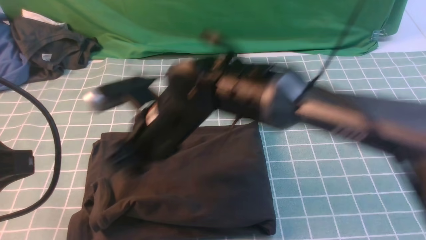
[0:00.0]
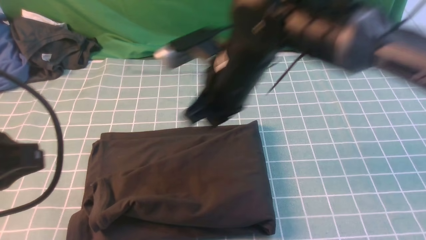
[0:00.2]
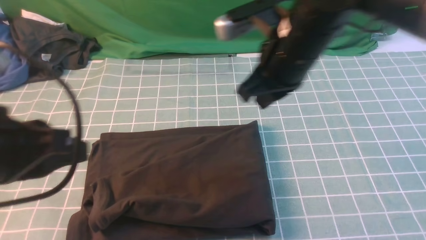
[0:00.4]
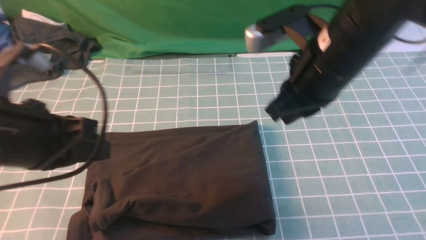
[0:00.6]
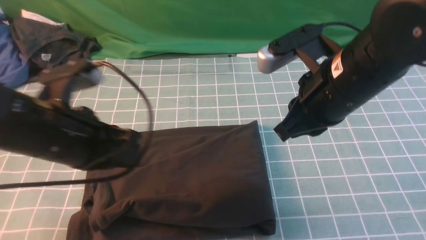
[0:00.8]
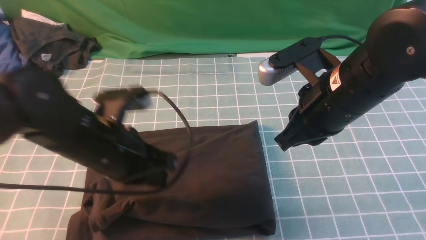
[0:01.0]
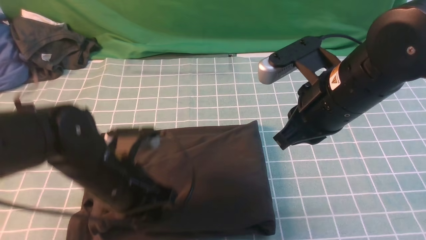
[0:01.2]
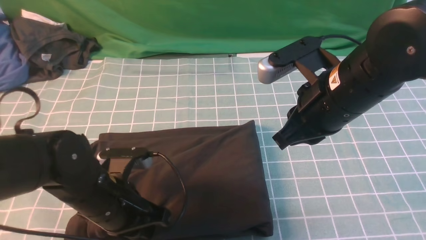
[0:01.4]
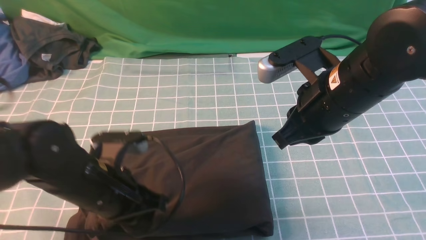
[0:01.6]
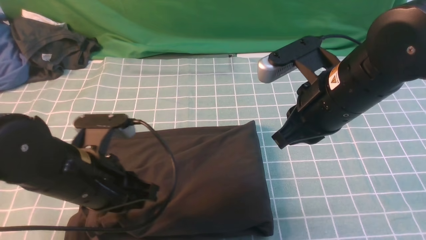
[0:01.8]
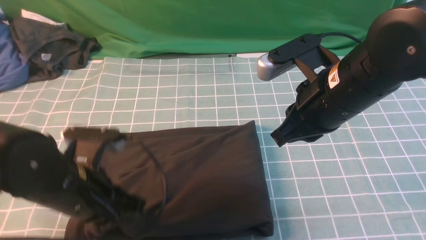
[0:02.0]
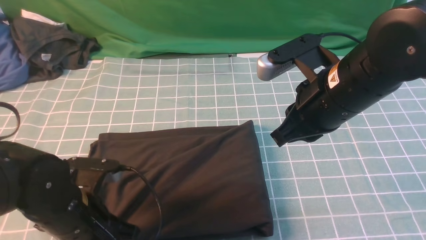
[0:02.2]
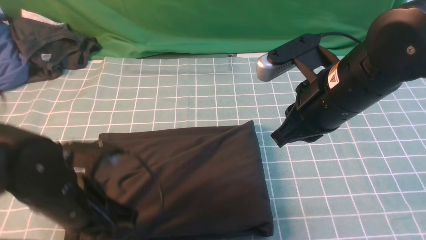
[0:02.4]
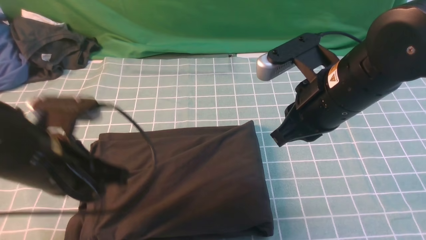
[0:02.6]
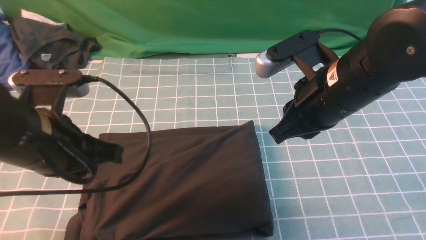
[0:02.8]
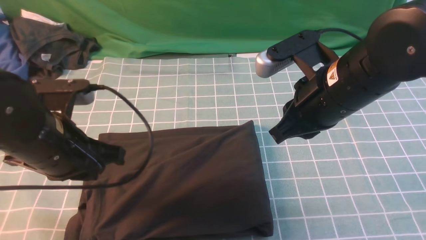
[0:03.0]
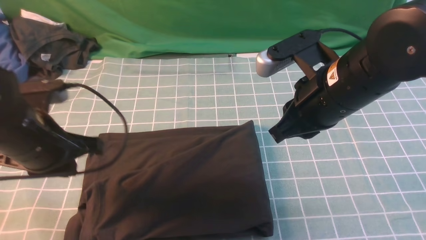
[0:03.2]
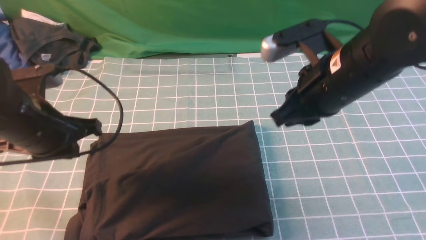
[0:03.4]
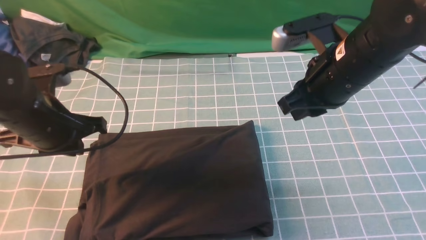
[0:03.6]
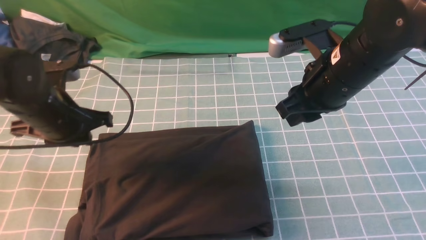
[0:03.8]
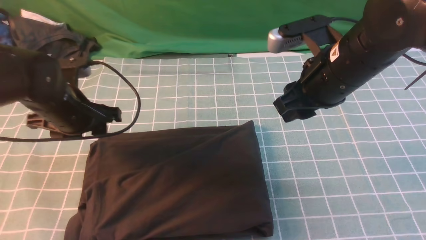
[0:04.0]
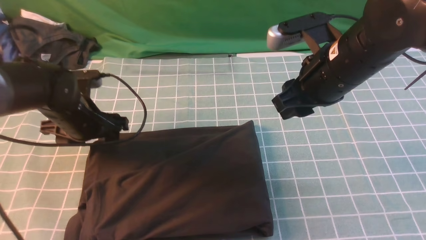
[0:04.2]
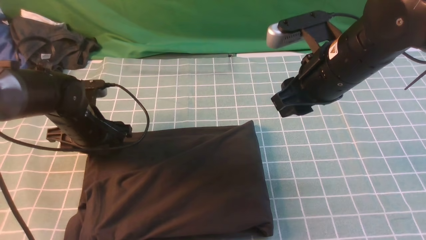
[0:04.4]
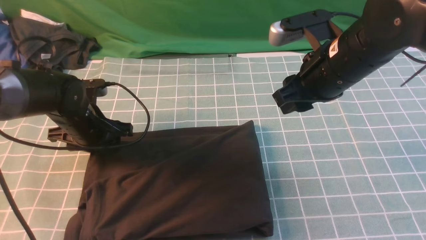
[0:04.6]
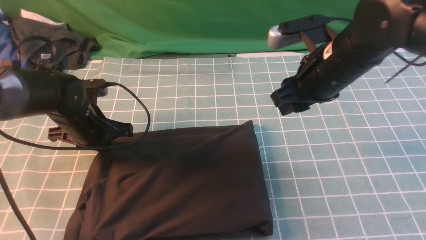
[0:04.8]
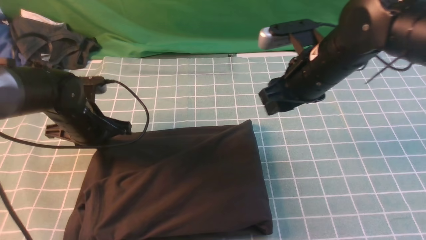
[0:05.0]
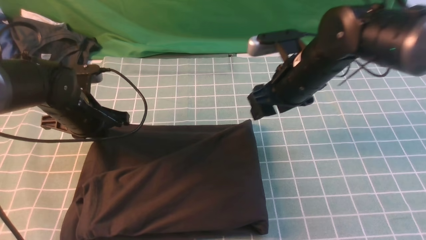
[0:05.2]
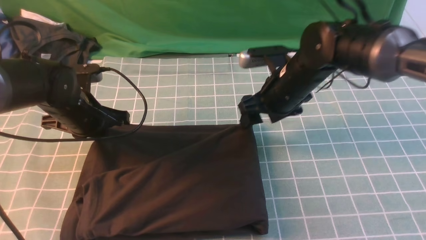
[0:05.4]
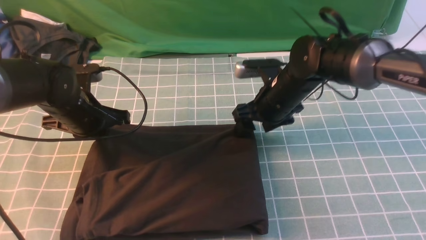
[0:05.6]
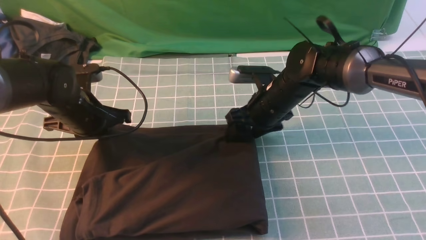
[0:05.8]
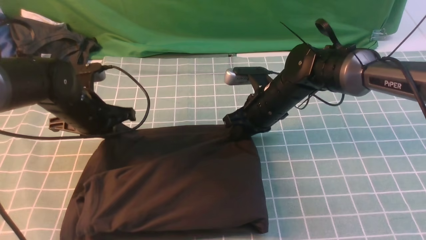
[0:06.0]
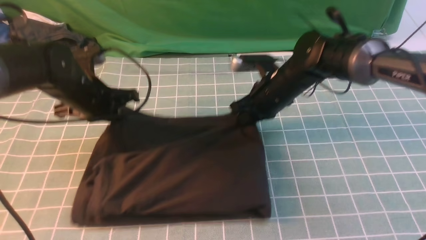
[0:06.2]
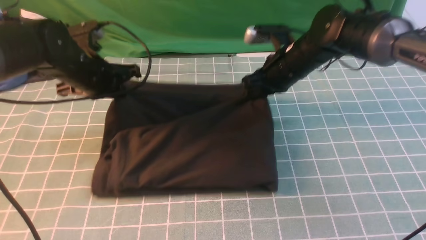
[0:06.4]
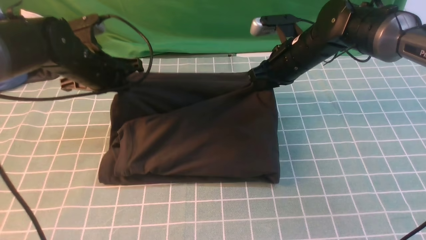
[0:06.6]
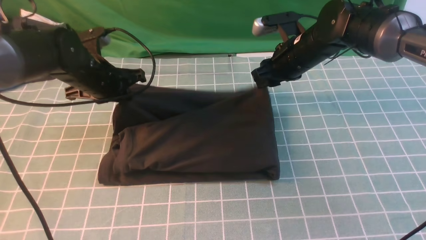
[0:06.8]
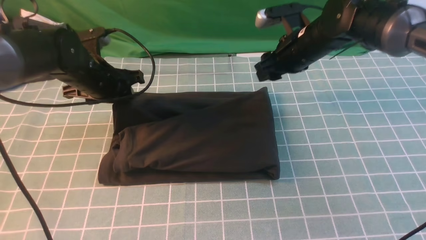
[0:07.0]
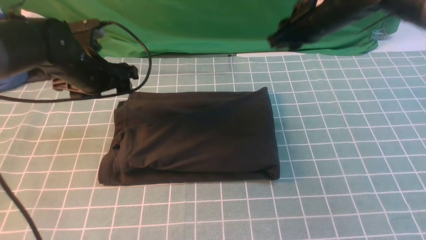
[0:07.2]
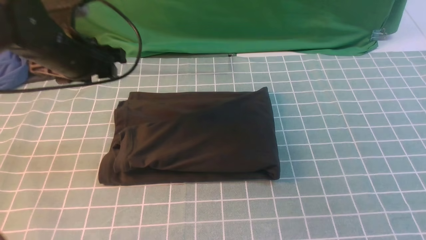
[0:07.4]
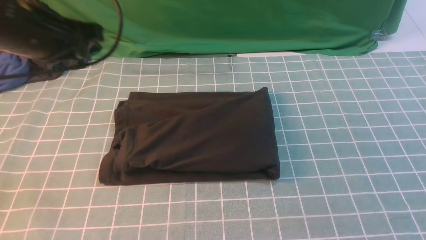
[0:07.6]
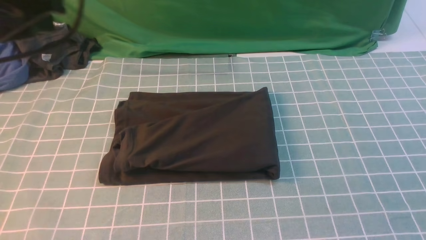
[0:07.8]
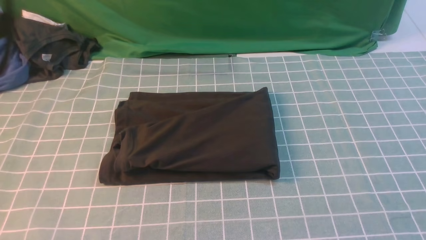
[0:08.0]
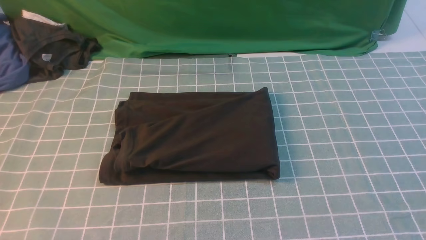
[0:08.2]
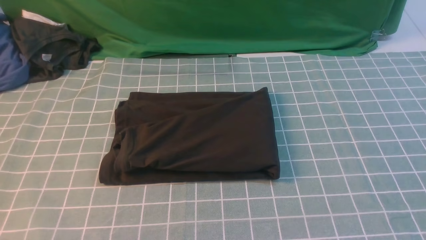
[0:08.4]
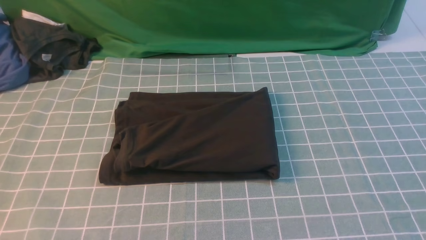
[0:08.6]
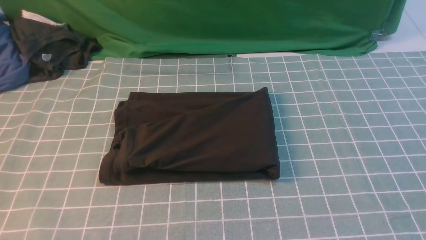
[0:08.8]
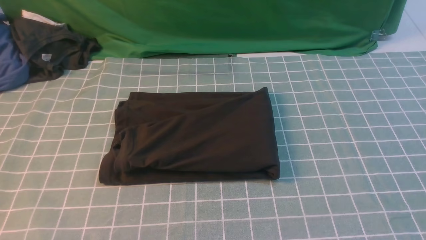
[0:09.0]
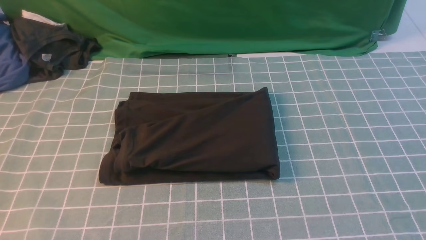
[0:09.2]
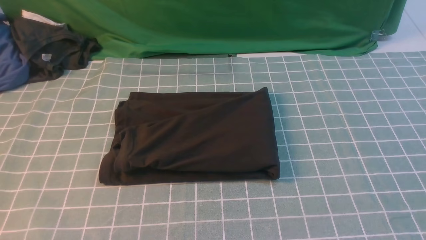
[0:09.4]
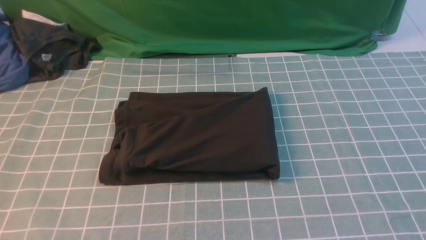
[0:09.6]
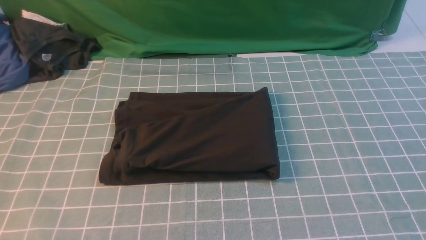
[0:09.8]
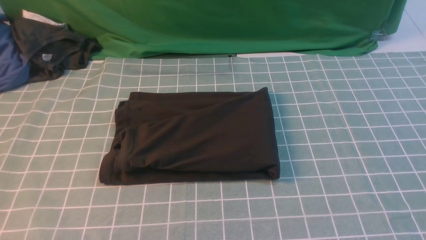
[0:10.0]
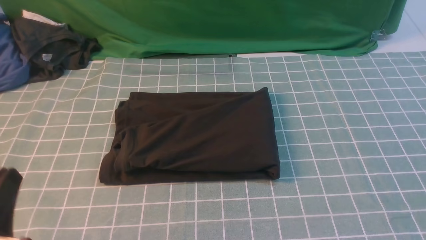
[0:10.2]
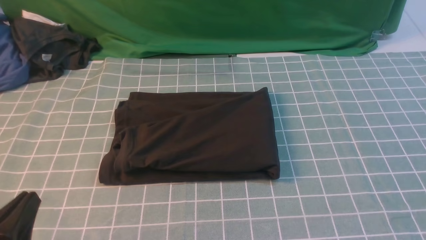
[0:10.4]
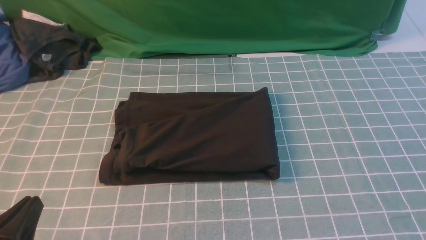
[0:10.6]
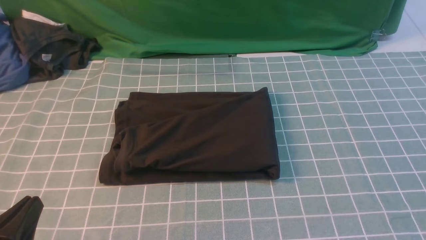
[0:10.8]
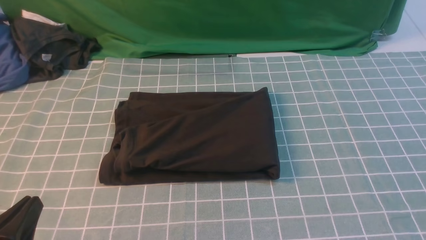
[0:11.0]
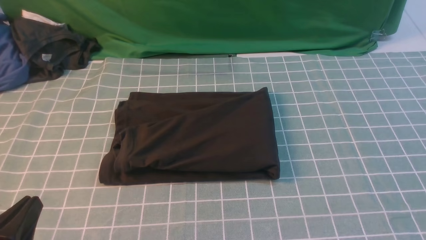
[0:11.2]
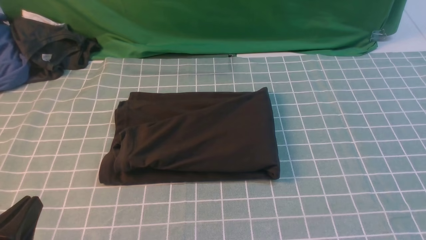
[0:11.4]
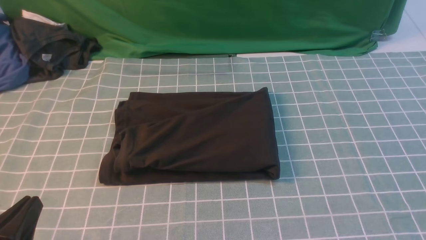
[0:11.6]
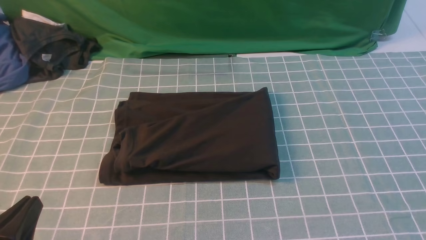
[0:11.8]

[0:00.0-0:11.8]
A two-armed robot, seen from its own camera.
0:00.0 to 0:01.4: The left gripper shifts some 20 cm downward, forward and to the right. The right gripper moves to the right, roughly 20 cm, and closes.
0:01.4 to 0:03.0: The left gripper is displaced upward and to the left by approximately 10 cm.
0:03.0 to 0:04.4: The left gripper shifts about 15 cm forward and downward, and opens. The right gripper opens up.
0:04.4 to 0:06.0: The left gripper closes. Meanwhile the right gripper travels downward and forward by approximately 15 cm, and opens and closes again.
0:06.0 to 0:07.4: The left gripper heads upward, covering some 10 cm, and opens, while the right gripper shifts about 25 cm upward.
0:07.4 to 0:08.8: The right gripper is displaced backward and to the right by roughly 40 cm. The left gripper travels backward by about 30 cm, and closes up.
0:08.8 to 0:10.4: The left gripper shifts some 15 cm downward.

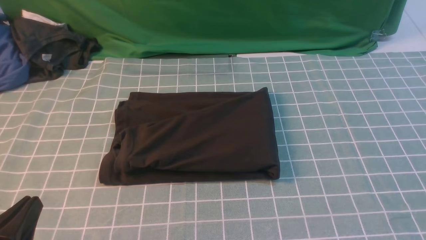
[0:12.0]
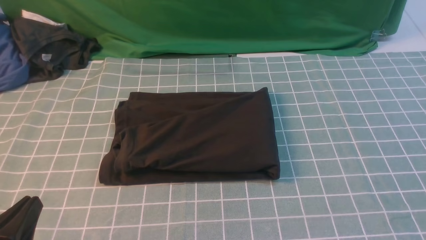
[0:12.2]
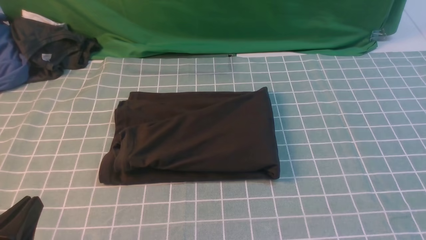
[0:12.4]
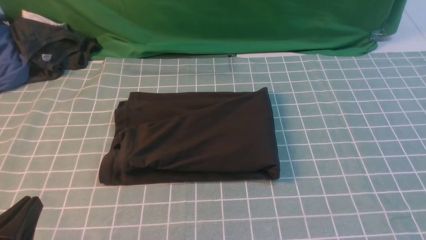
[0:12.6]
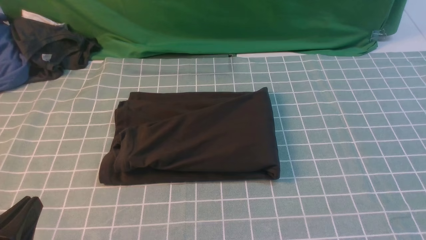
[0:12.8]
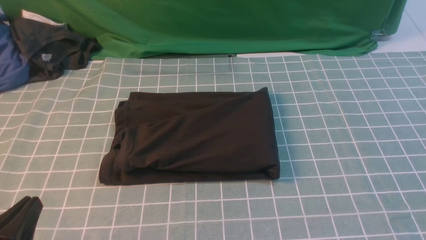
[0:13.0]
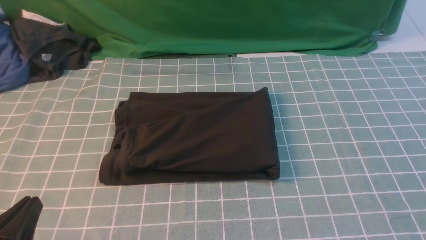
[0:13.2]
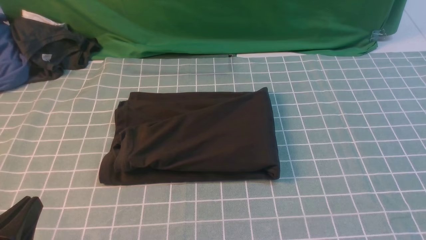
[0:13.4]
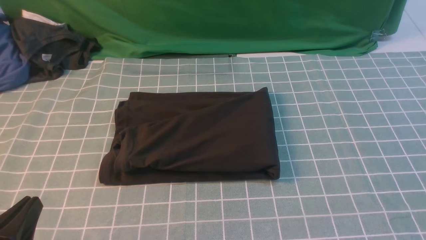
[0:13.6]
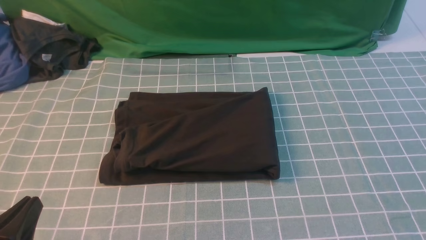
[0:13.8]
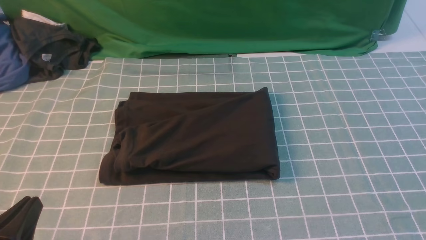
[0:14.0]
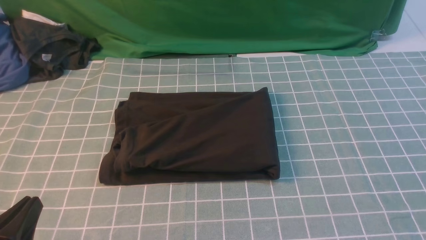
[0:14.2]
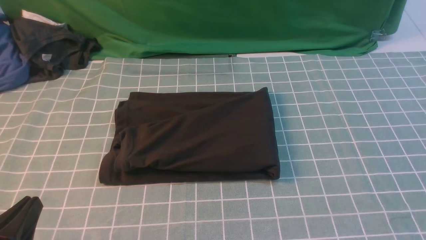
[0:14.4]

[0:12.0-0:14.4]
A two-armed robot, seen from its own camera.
0:13.2 to 0:14.4: Both grippers stay put.
